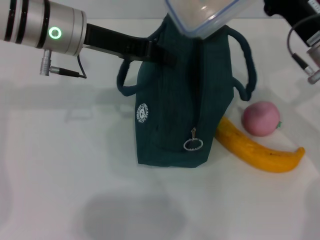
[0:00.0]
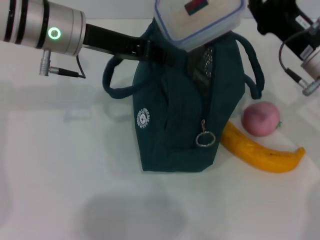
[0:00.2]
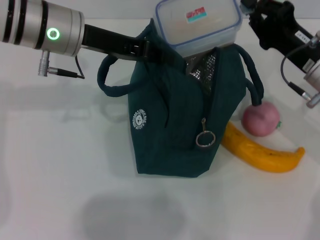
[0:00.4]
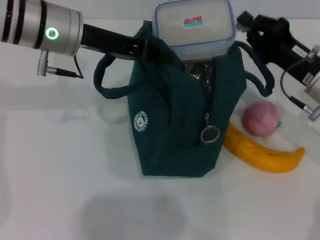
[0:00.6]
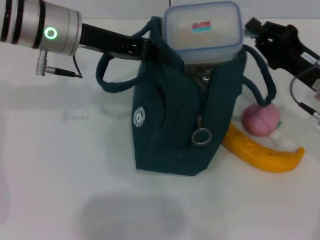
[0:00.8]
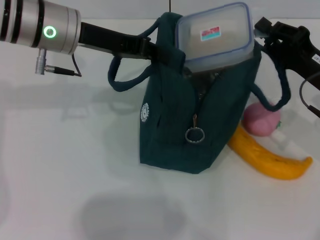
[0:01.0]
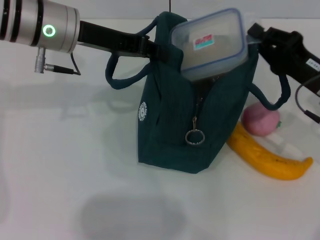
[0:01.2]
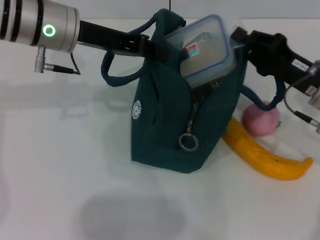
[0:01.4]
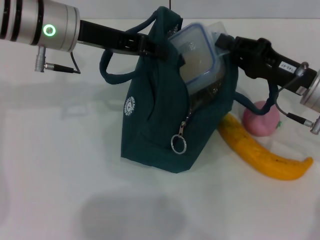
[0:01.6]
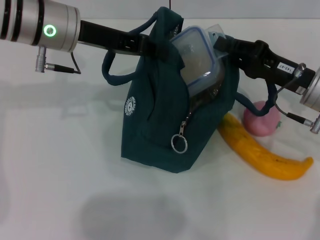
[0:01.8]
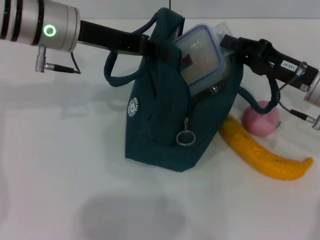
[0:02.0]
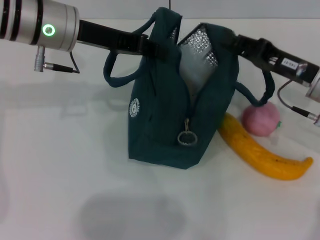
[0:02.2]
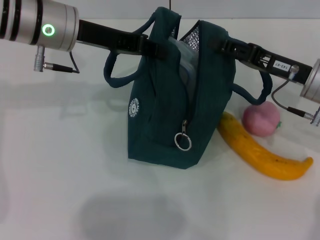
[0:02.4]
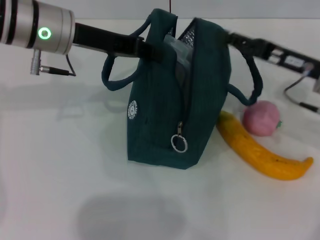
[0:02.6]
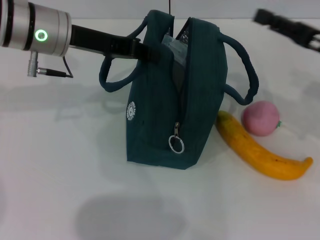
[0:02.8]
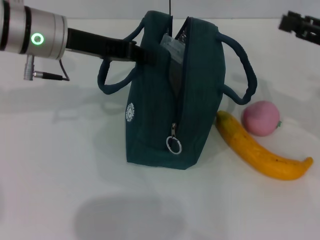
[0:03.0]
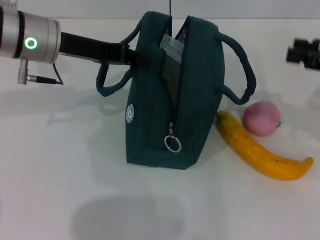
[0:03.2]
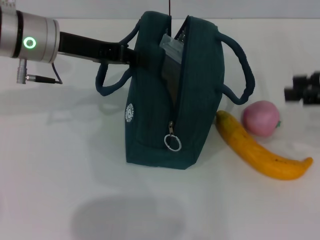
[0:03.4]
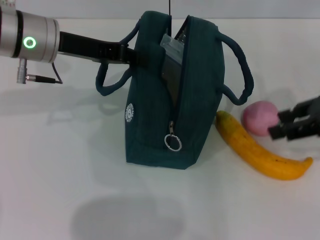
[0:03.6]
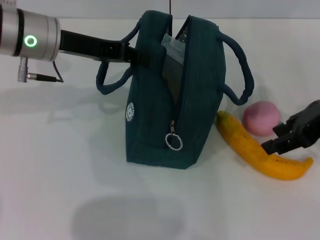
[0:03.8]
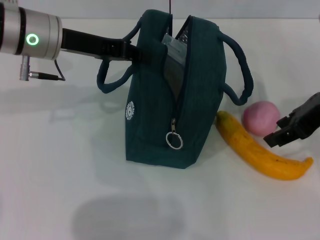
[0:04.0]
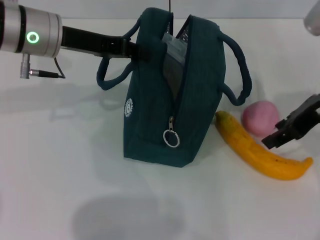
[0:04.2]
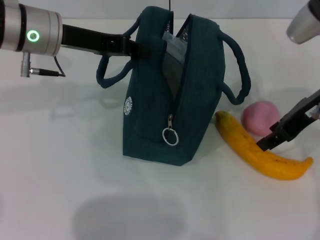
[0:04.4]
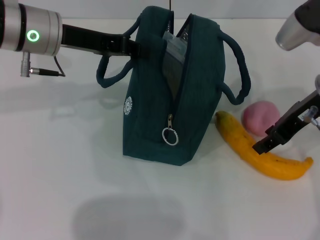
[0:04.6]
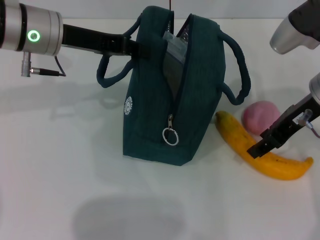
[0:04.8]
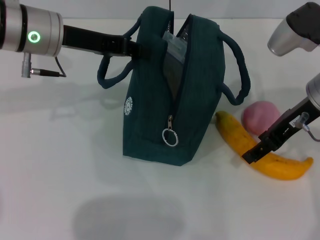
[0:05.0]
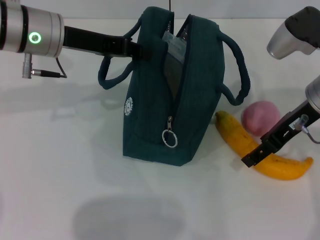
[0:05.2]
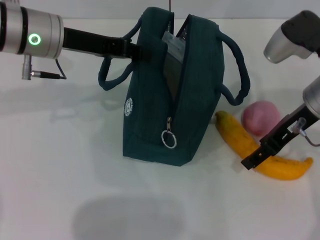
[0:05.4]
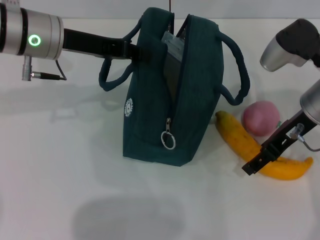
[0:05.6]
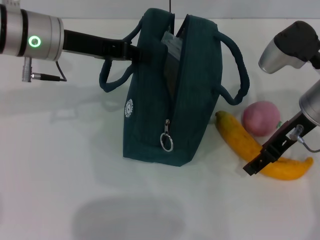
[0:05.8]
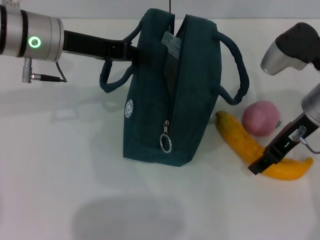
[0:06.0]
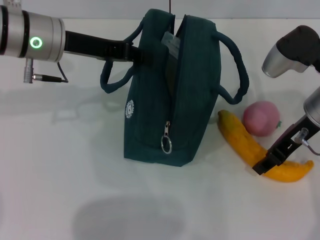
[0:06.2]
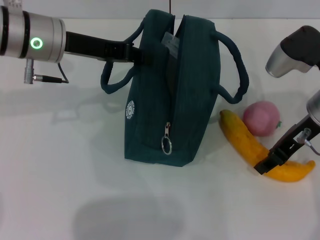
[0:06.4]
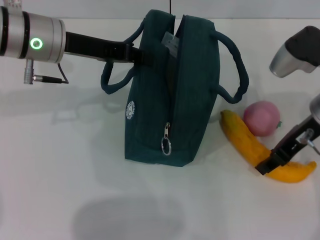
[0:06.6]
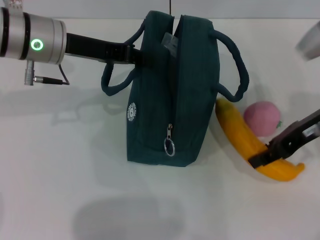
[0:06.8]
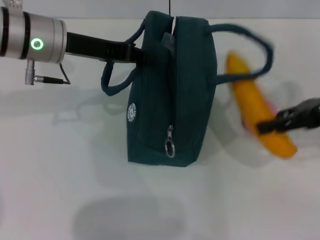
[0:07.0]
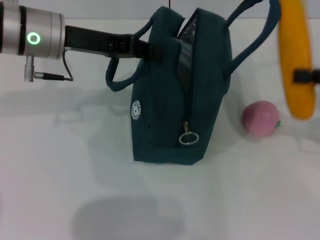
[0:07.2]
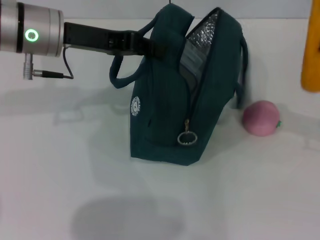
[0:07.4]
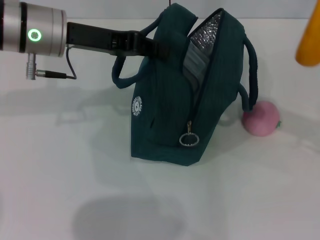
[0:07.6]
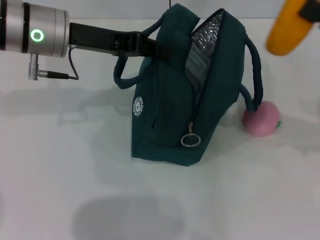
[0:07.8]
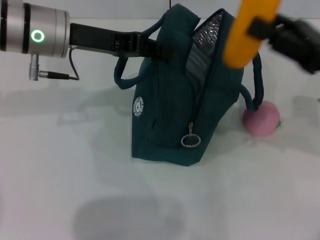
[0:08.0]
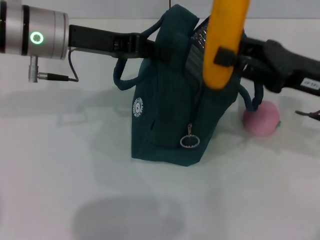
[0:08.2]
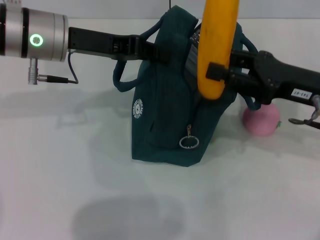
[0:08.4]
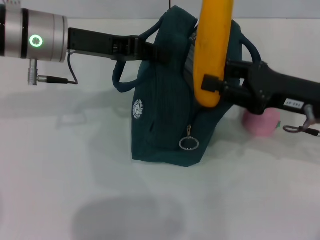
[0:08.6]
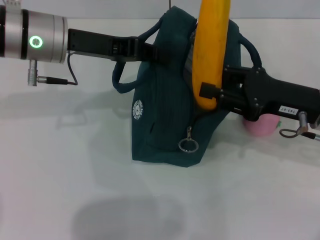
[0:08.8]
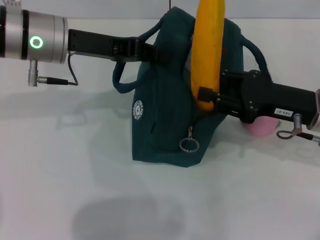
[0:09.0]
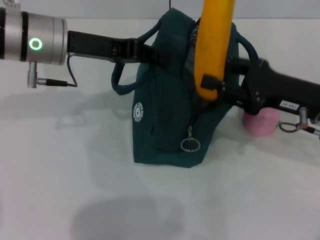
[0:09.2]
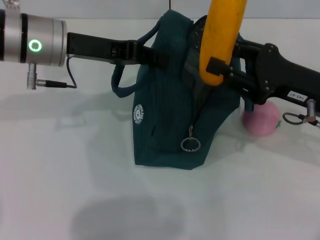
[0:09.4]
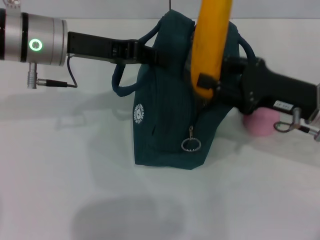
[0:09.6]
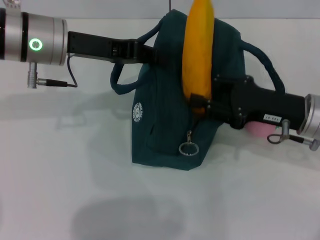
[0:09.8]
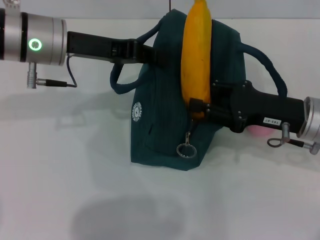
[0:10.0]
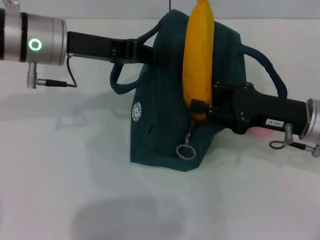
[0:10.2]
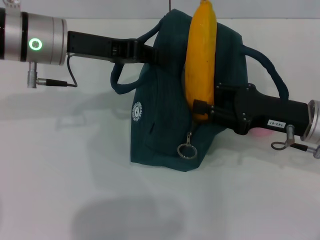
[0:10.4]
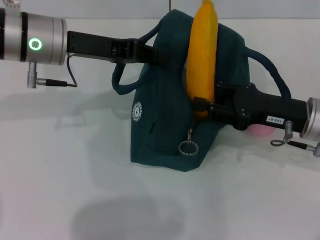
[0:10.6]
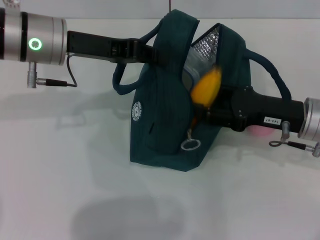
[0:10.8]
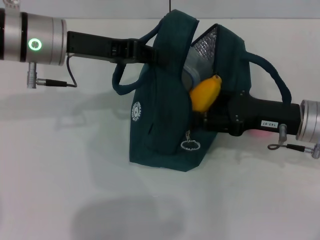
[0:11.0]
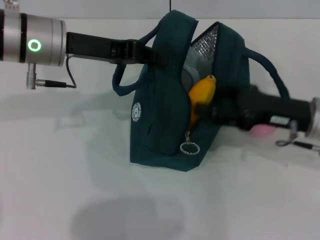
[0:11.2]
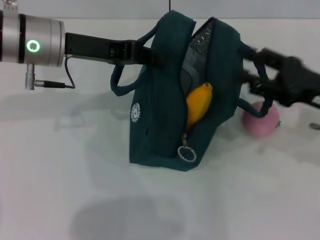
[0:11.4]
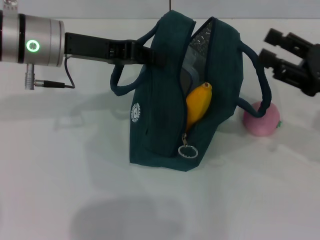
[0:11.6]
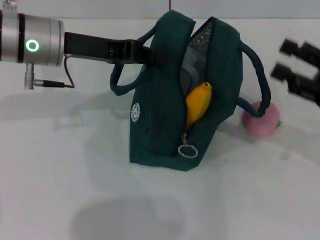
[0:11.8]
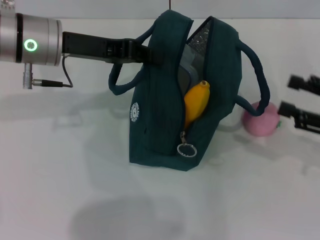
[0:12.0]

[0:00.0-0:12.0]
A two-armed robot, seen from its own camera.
Step, 0:00.0 to 0:02.2: Place the lunch box into the lunch bag with your right hand.
Step, 0:02.4 to 0:06.2: Take the banana with your right hand.
Step, 0:06.6 to 0:11.2: Put the banana into the lunch bag with your right hand.
0:01.6 to 0:03.0: The right gripper shifts about 10 cm to the right and upward, and opens its fingers.
0:03.0 to 0:04.4: The right gripper moves to the left, some 10 cm.
0:04.4 to 0:06.0: The grippers move only a little.
0:06.0 to 0:07.6: The right gripper goes roughly 15 cm to the right, and closes up.
0:07.6 to 0:09.0: The right gripper travels to the left and downward by roughly 15 cm.
0:09.0 to 0:10.4: The grippers move only a little.
0:10.4 to 0:12.0: The right gripper shifts some 10 cm to the right.

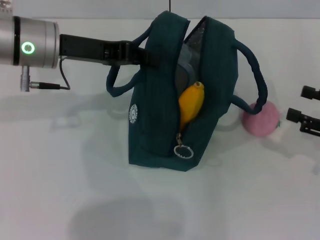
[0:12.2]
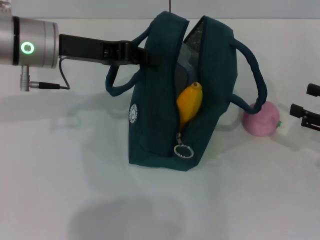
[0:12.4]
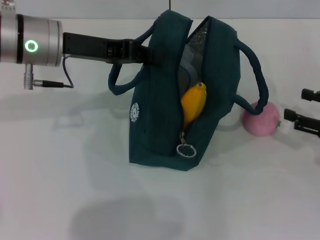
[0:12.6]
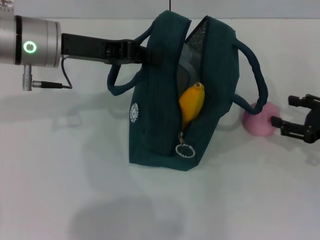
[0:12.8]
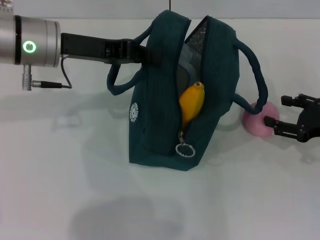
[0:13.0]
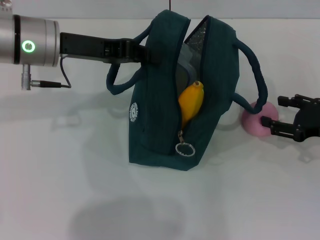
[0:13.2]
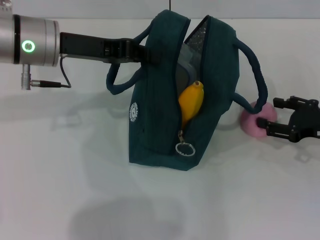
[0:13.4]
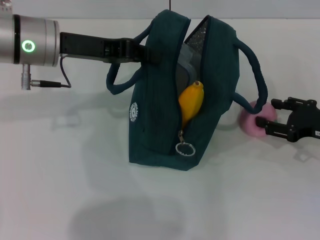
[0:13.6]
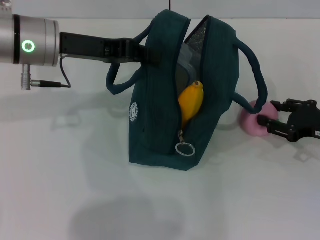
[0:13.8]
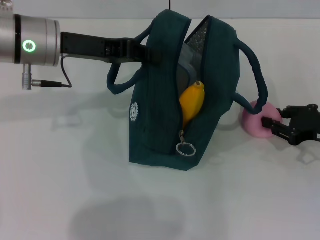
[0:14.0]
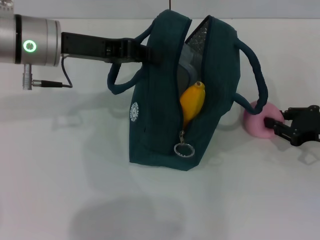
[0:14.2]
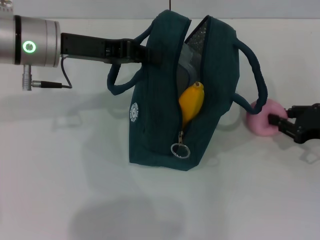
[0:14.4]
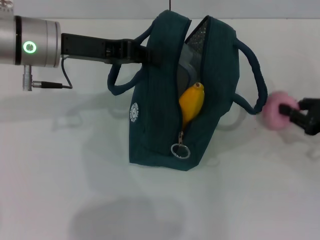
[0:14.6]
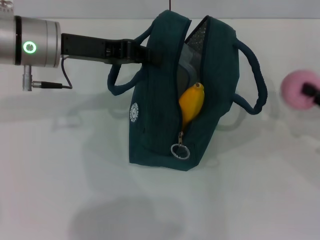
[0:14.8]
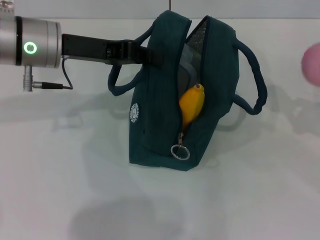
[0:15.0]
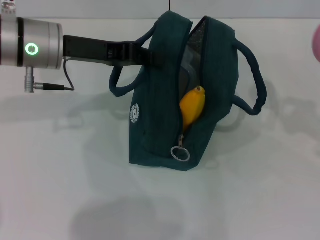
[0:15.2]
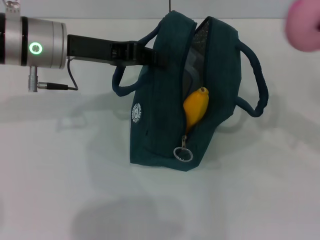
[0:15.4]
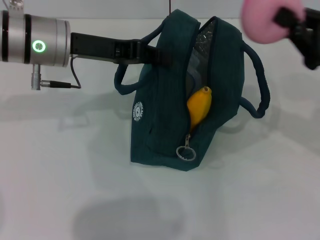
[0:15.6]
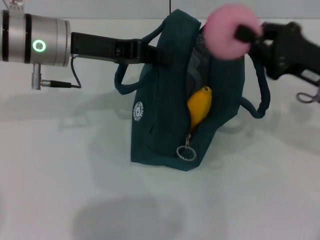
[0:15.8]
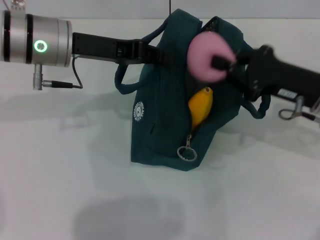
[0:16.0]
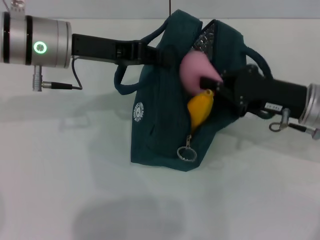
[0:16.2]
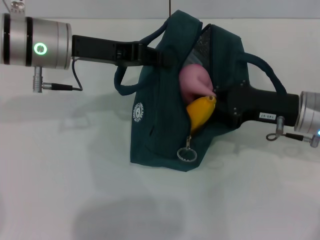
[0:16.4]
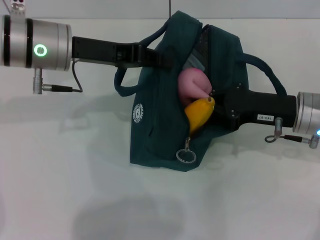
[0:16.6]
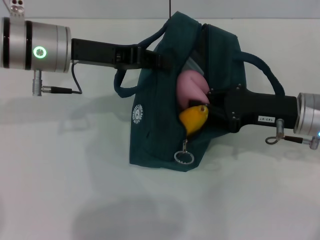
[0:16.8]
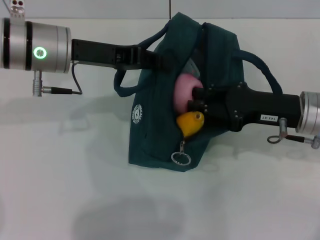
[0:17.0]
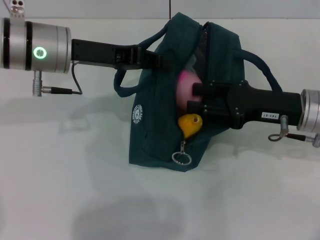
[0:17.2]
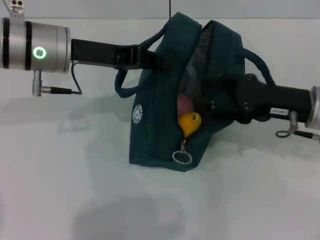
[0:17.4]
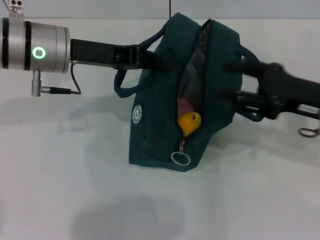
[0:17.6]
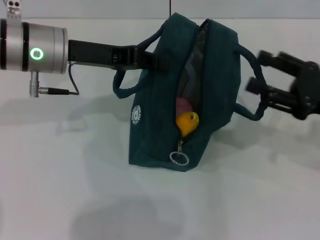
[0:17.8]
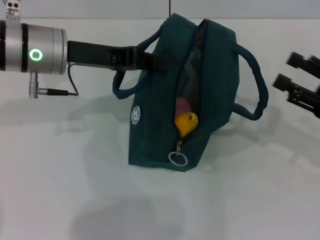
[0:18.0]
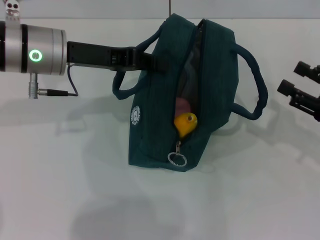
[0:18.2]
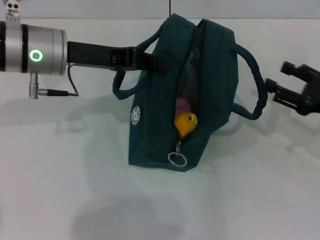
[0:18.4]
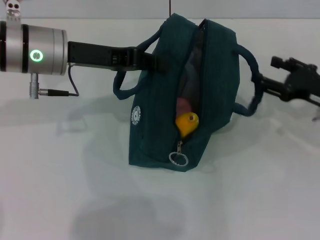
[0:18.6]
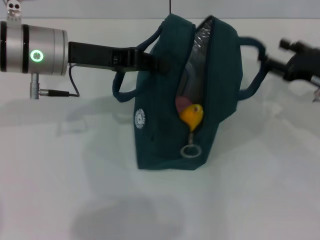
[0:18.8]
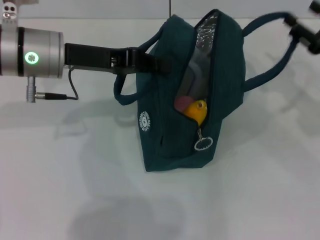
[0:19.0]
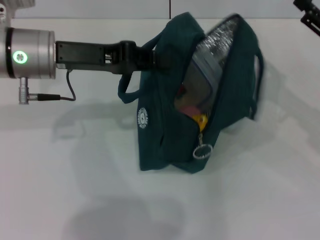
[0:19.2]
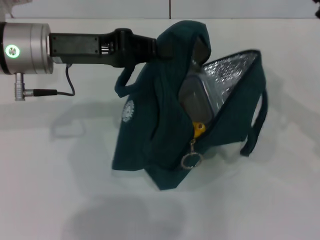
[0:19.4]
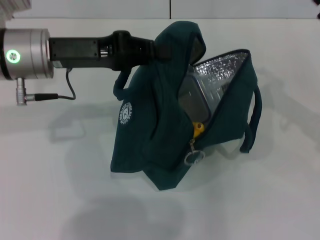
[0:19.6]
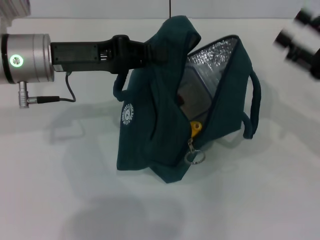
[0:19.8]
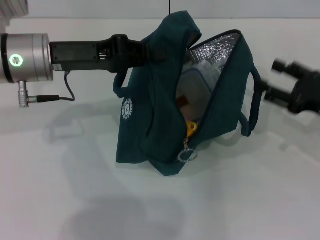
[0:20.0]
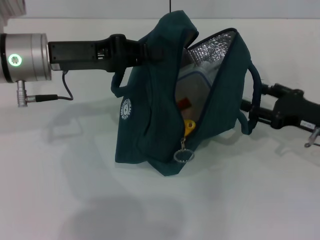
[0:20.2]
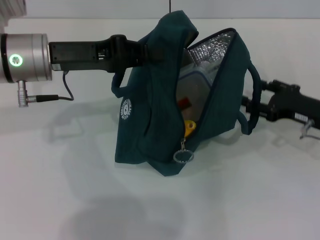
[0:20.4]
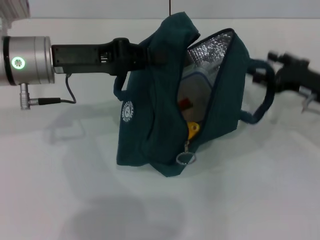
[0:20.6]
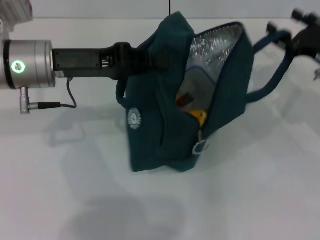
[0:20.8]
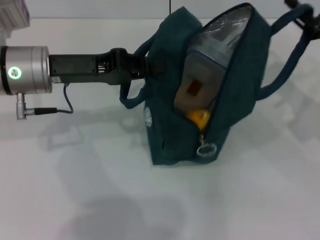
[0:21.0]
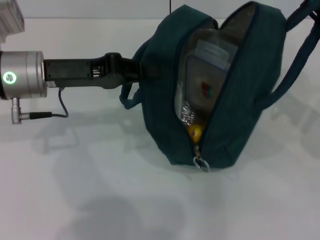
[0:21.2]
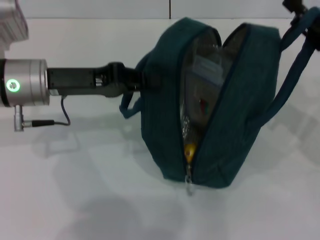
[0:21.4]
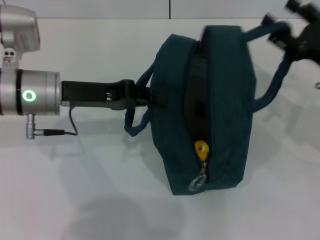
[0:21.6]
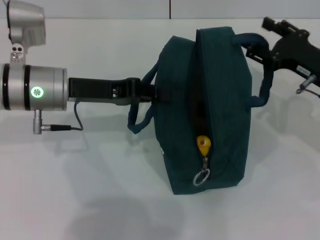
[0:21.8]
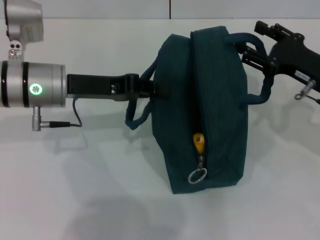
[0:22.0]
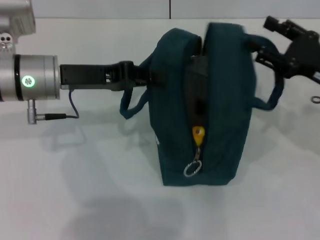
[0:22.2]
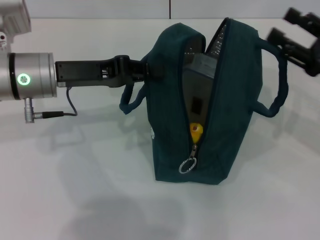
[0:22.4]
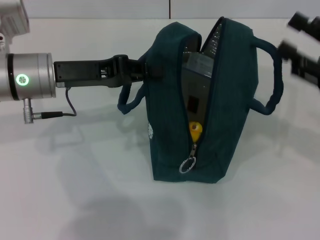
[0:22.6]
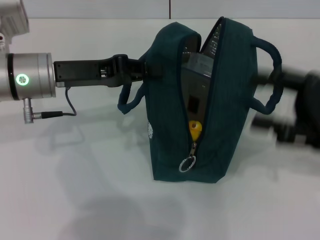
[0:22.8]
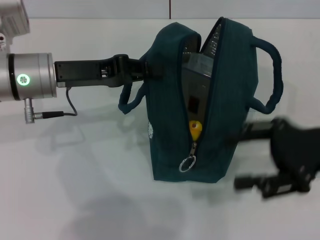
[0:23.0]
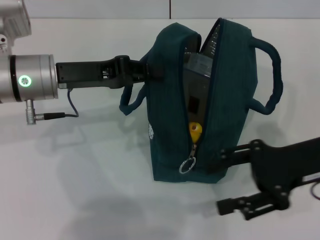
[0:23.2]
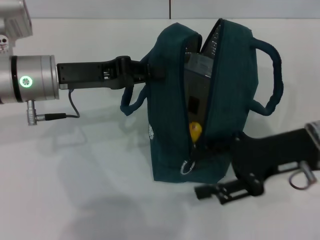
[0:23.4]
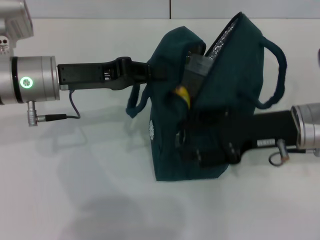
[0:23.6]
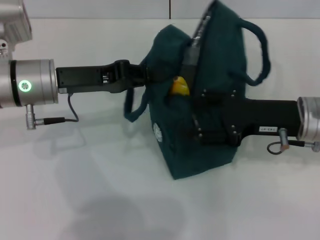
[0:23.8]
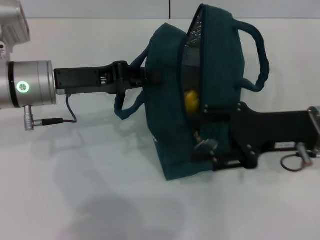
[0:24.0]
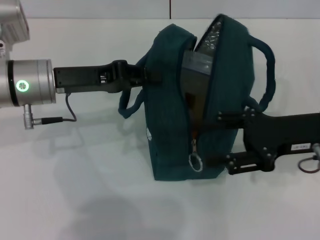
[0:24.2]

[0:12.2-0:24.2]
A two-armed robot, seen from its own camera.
Step, 0:12.2 to 0:14.0: Grab the peach with your right hand.
Step, 0:17.6 to 0:22.0: Hold the lunch bag with your right hand.
0:12.2 to 0:13.8: The right gripper shifts by about 5 cm.
0:13.8 to 0:15.2: The right gripper heads upward and to the right, covering some 10 cm, and closes.
0:15.2 to 0:16.6: The right gripper heads to the left and forward, covering some 15 cm.
0:16.6 to 0:18.2: The right gripper goes some 10 cm to the right and backward, and opens.
0:19.8 to 0:21.2: The right gripper travels downward and back again, approximately 5 cm each way.
0:22.6 to 0:24.2: The right gripper heads to the left, covering about 5 cm.
